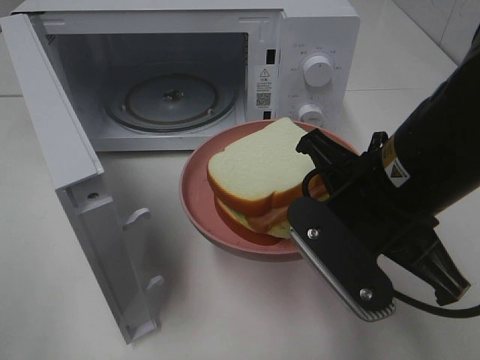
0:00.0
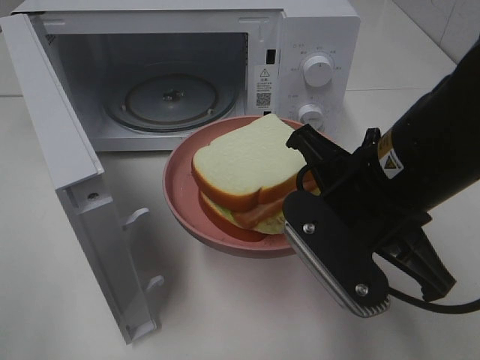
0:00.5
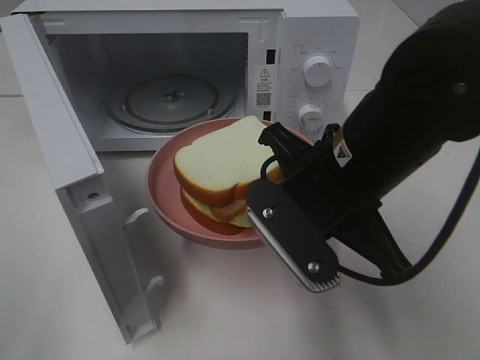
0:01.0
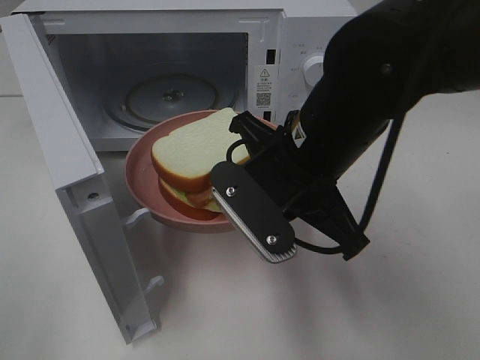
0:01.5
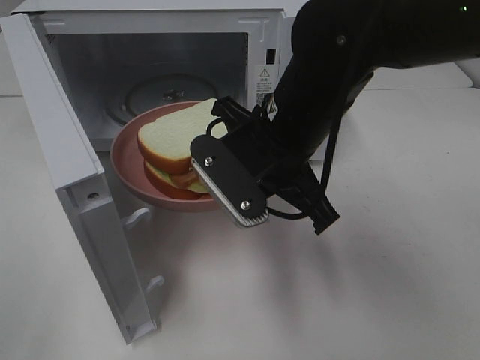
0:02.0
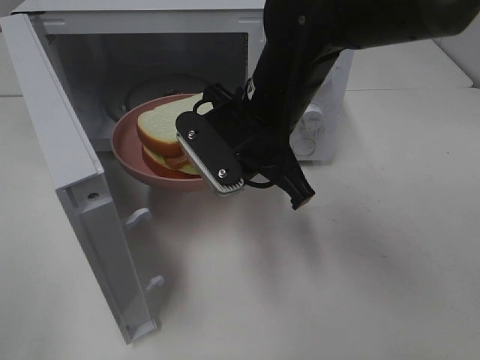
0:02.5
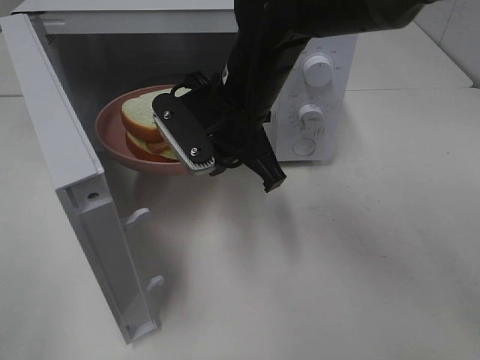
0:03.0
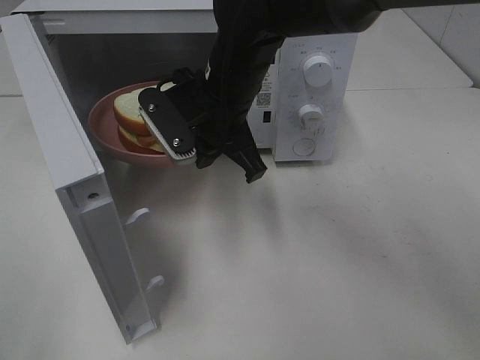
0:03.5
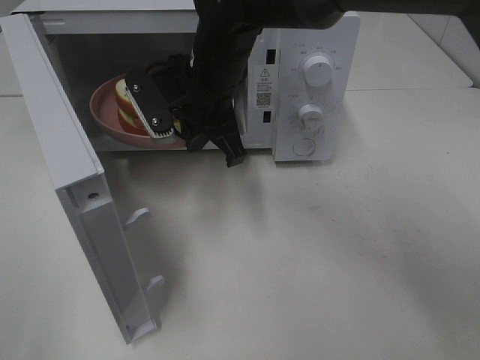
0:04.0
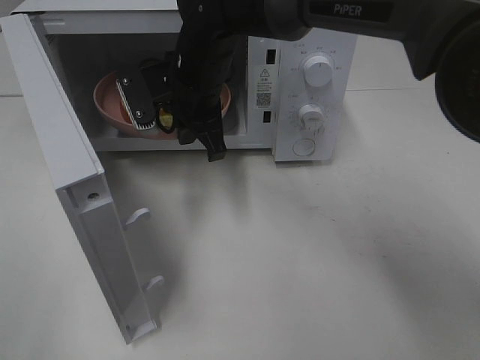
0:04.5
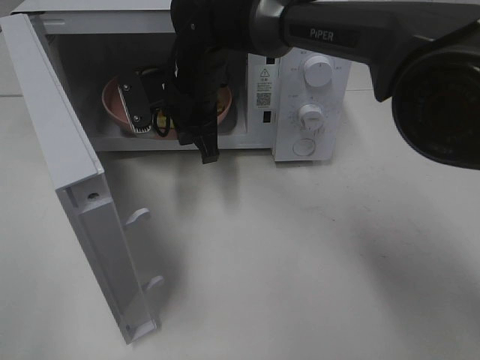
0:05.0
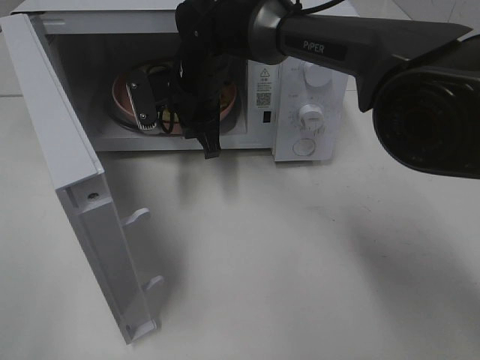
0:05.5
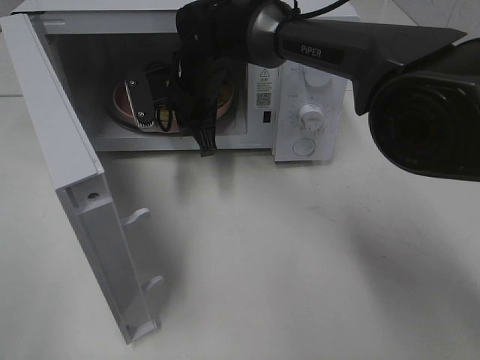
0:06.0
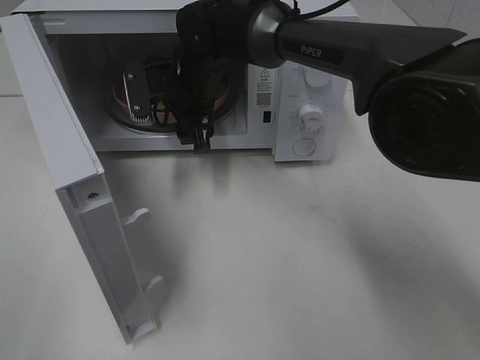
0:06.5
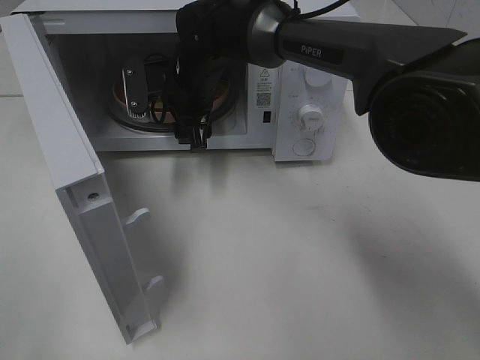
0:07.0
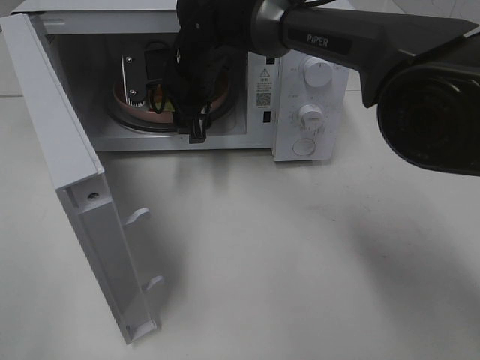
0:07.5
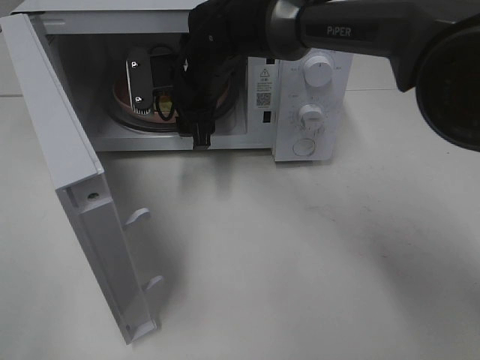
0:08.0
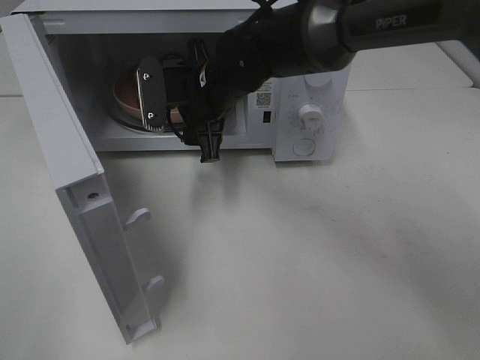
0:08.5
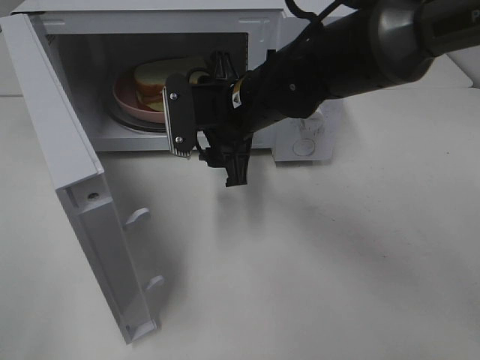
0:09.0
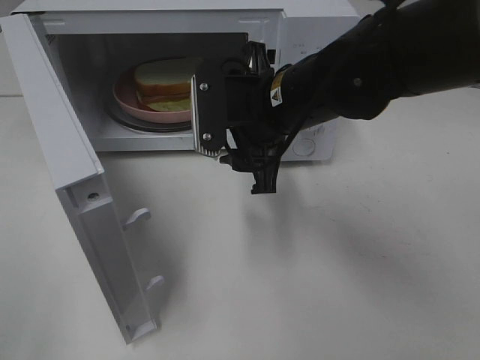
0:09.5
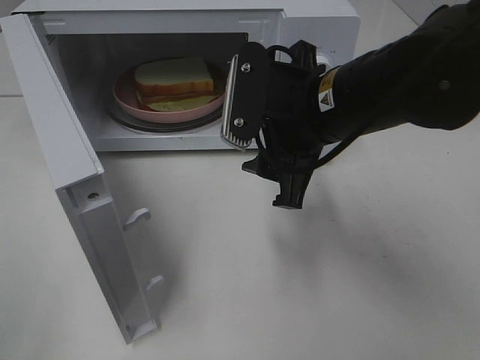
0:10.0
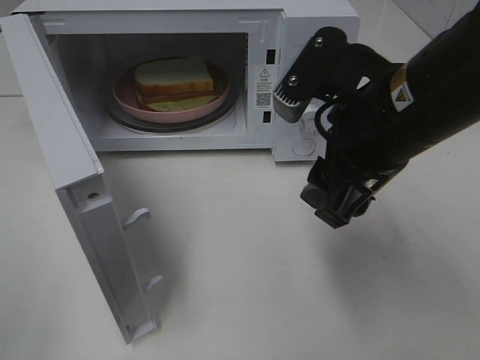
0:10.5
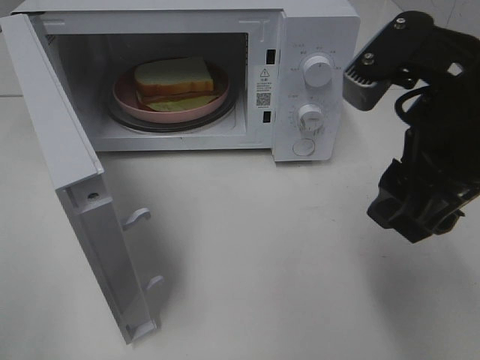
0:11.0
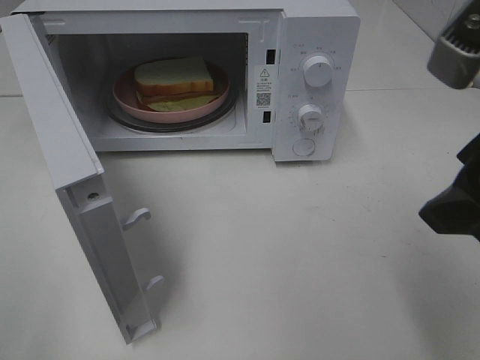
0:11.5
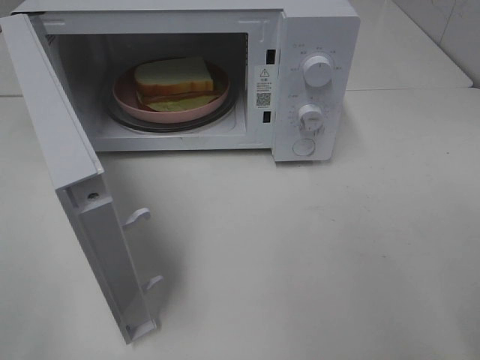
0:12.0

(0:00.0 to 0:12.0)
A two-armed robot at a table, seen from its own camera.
Task of the whole recording: Heat Sandwich.
Step, 0:00.0 - 0:08.0: Right hand: place the plate in the microwave.
0:00.0 - 0:02.0: The right gripper goes some 10 cm forward and to the left.
0:02.0 - 0:04.0: The right gripper shifts some 15 cm forward and to the left.
0:04.0 - 0:06.0: The right gripper moves forward, about 5 cm.
0:06.0 - 0:08.0: The right gripper opens up.
0:08.0 - 0:10.0: The right gripper heads backward and to the right, covering some 20 cm.
0:10.0 - 0:12.0: The right gripper travels to the right and backward by about 20 cm.

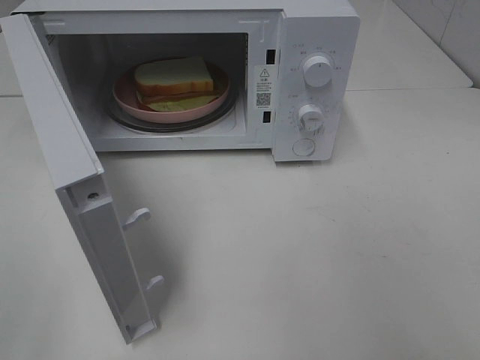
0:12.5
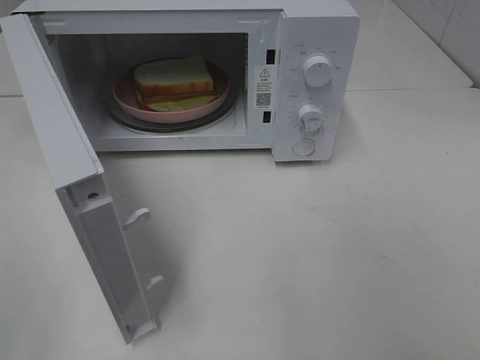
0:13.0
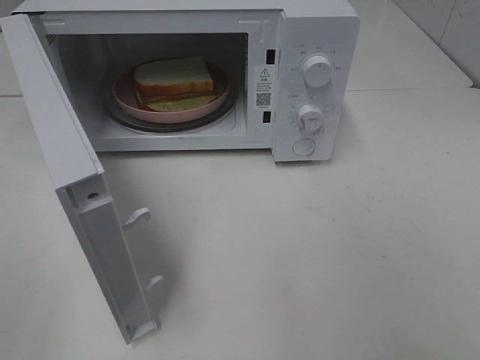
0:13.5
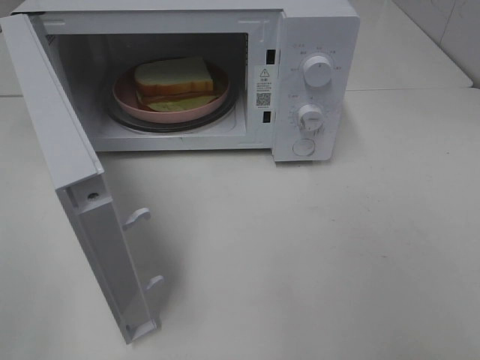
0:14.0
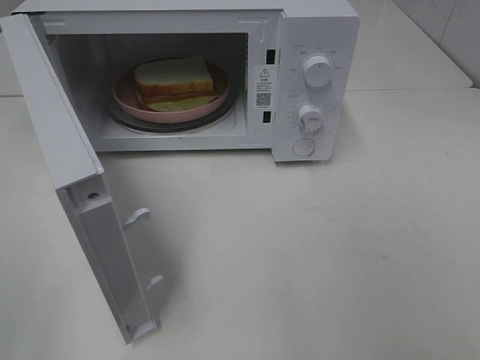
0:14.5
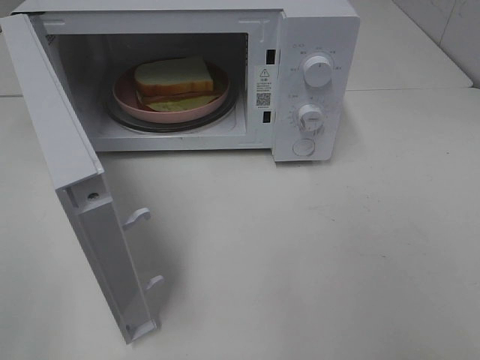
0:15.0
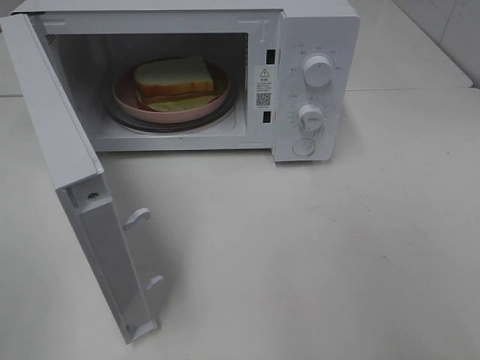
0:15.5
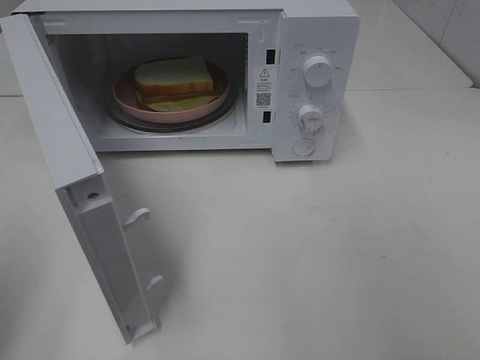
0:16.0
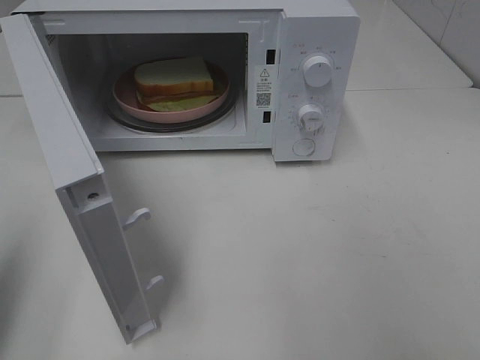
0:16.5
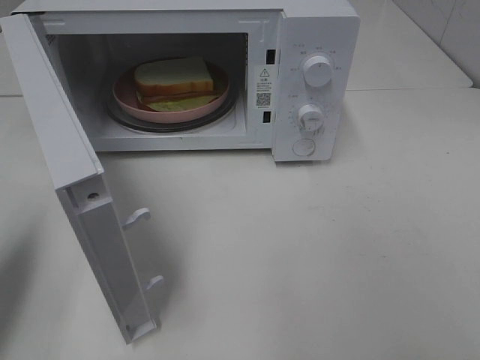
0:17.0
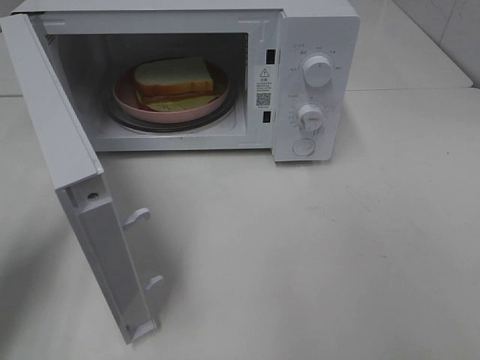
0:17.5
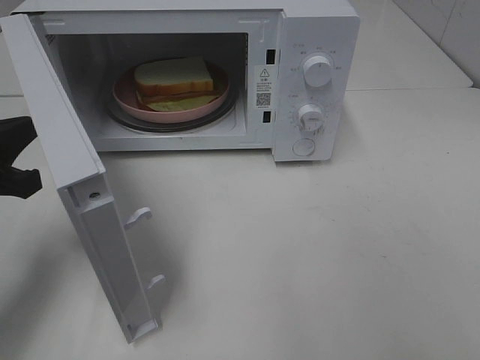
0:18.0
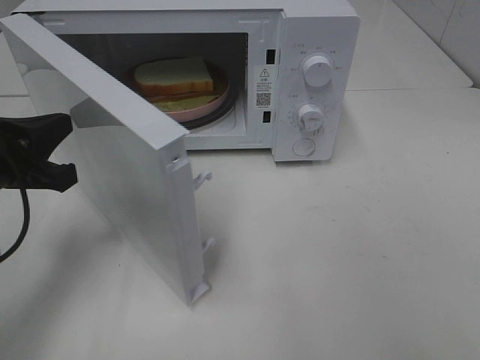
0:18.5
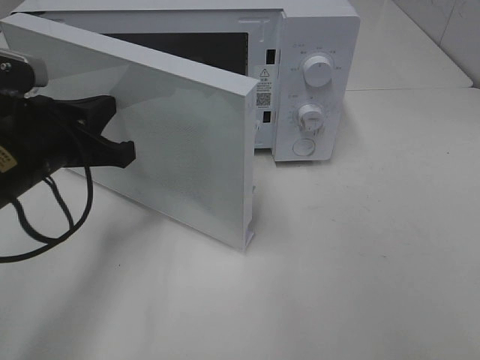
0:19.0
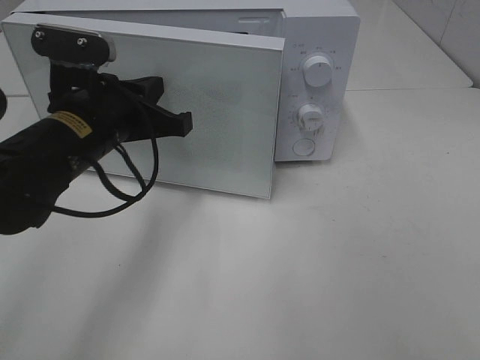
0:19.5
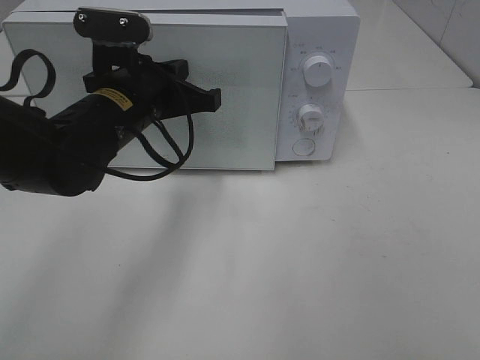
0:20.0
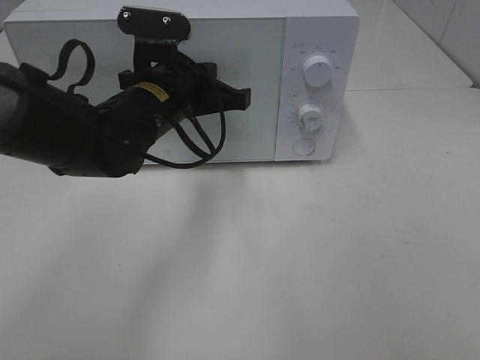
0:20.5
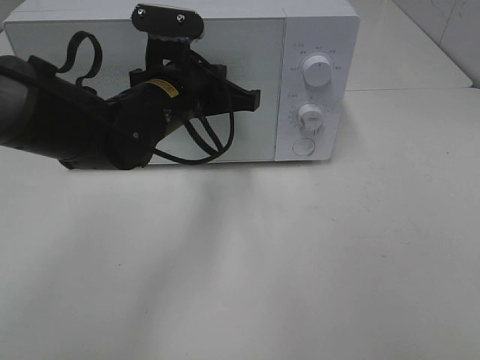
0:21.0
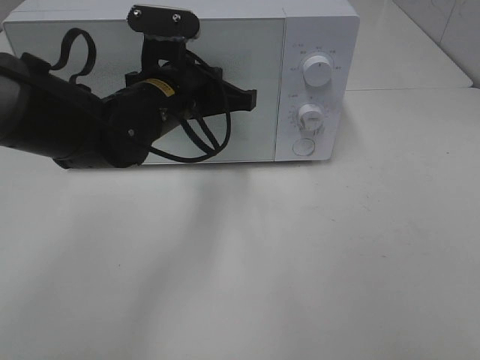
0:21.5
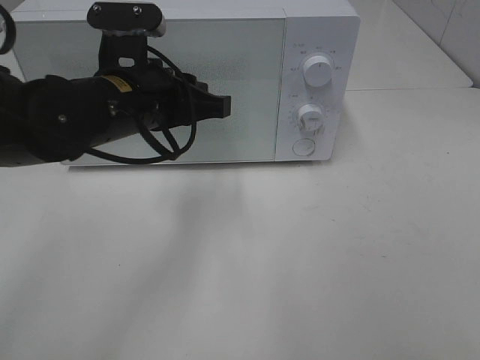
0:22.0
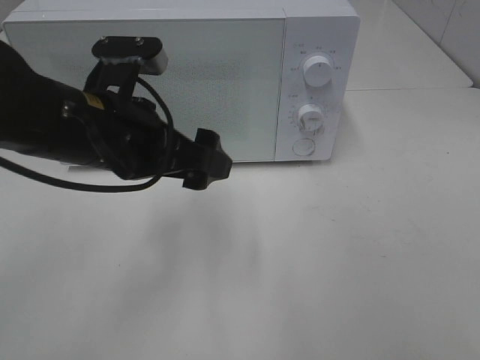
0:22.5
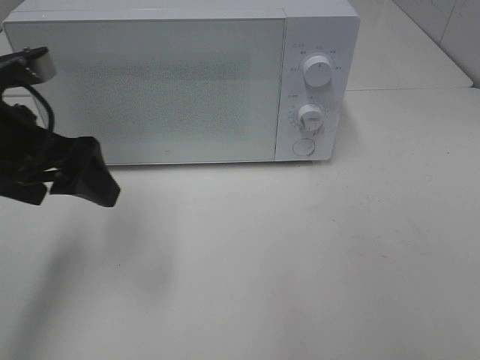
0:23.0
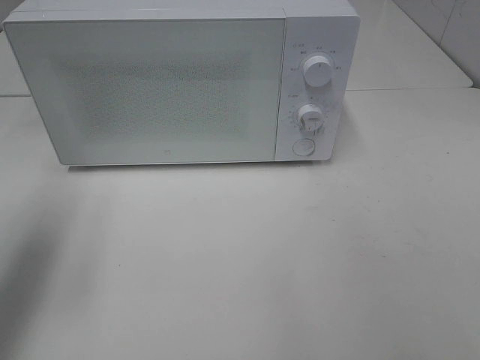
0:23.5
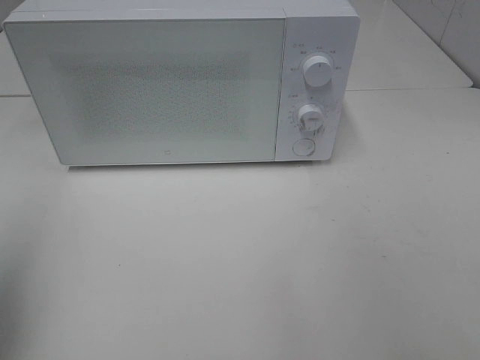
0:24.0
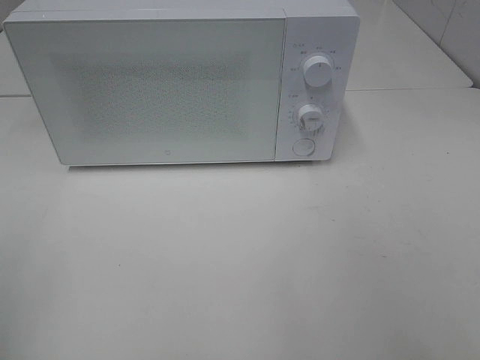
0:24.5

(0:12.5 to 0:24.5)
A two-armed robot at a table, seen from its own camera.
Task of the whole recording: Heat Sandwich.
Step, 0:12.5 - 0:22.0: Left hand: close the microwave door.
0:14.5 - 0:16.5: The left gripper moves forward, some 15 cm, and closes.
0:16.5 - 0:18.5: The left gripper moves forward, downward and to the right, about 15 cm.
0:18.5 - 0:20.5: The left gripper shifts roughly 20 cm to the right and forward.
0:20.5 - 0:22.5: The left gripper goes some 10 cm backward, and opens up.
0:22.5 - 0:24.5: The left gripper moves to the left and backward, some 30 cm.

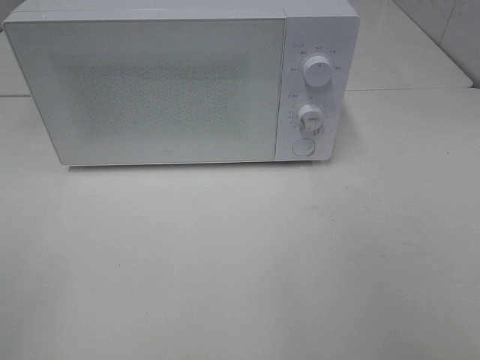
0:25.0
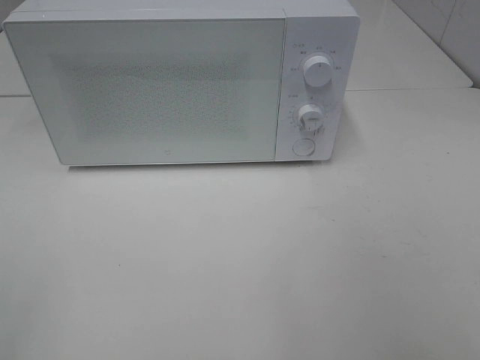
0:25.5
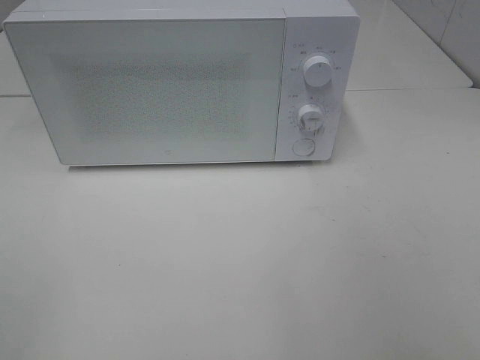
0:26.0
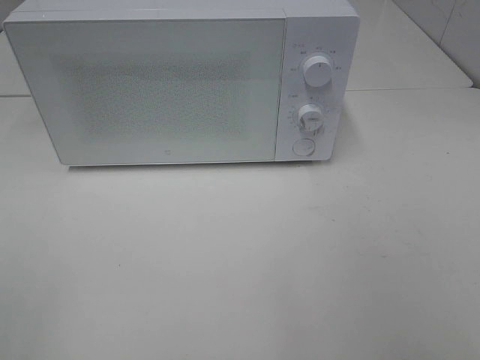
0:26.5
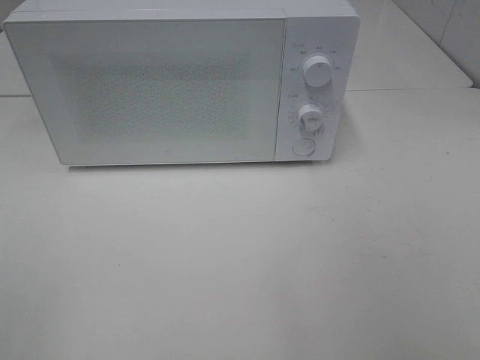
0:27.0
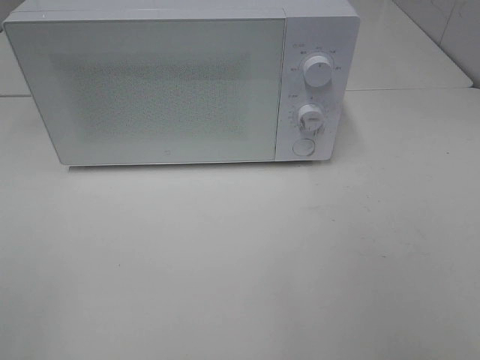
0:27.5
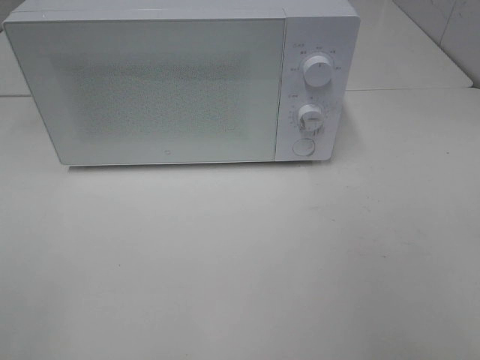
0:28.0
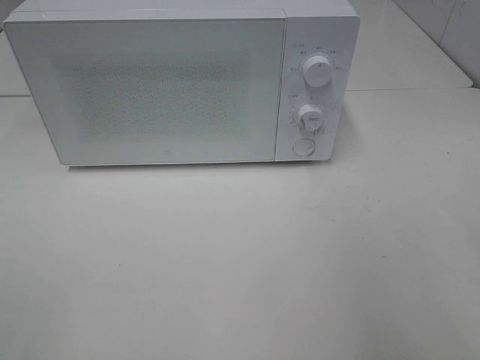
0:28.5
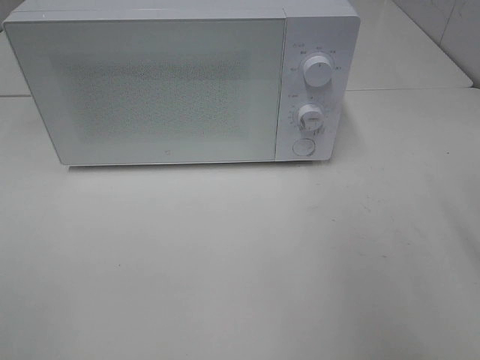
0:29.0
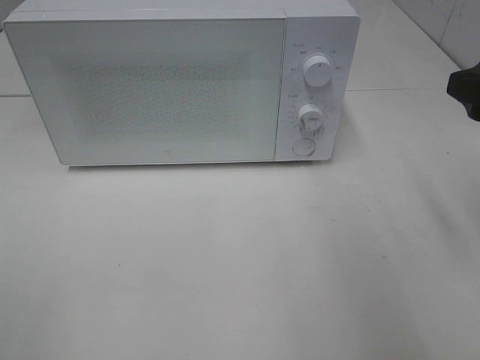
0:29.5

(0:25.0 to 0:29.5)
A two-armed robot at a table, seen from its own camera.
Task of the whole recording: Heat Sandwich.
0:27.0 - 0:29.5: The right gripper is displaced forward by about 20 cm.
